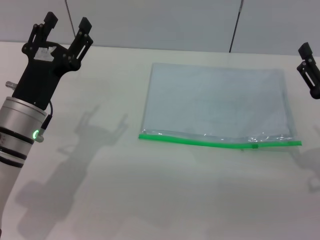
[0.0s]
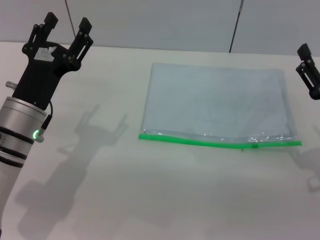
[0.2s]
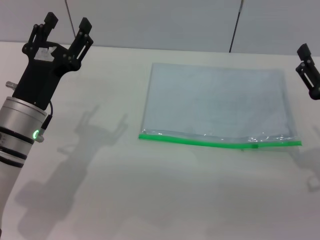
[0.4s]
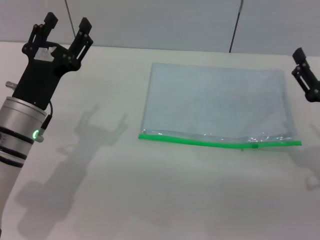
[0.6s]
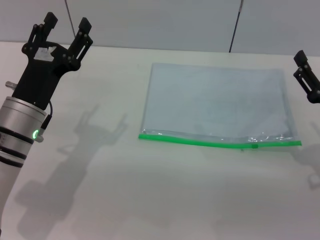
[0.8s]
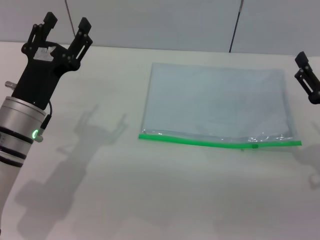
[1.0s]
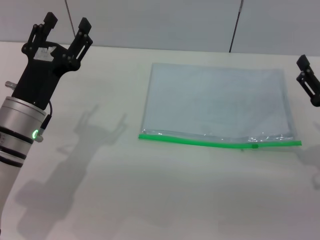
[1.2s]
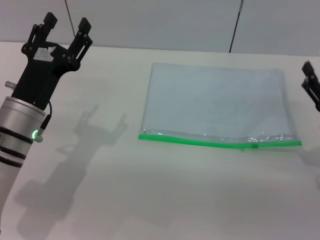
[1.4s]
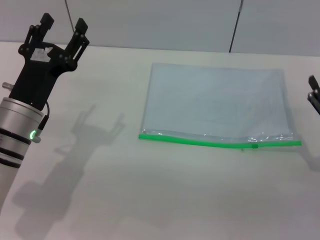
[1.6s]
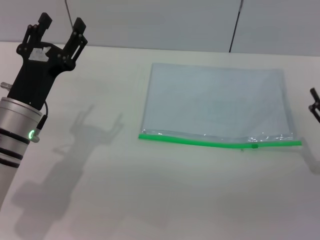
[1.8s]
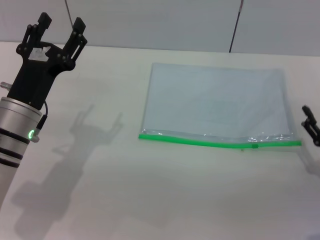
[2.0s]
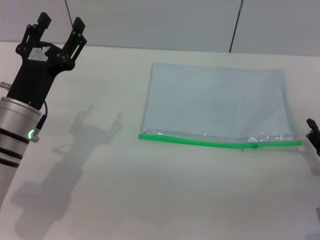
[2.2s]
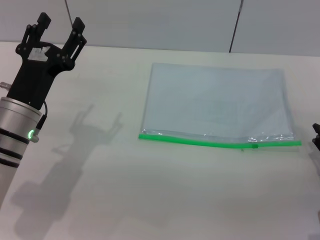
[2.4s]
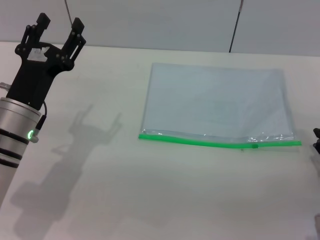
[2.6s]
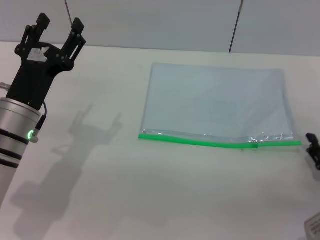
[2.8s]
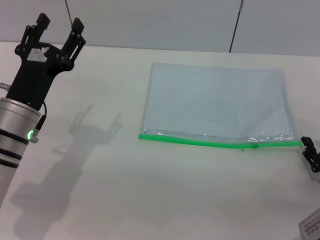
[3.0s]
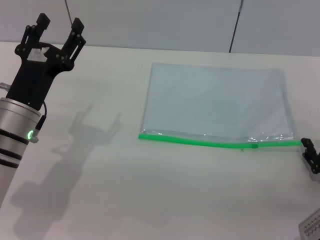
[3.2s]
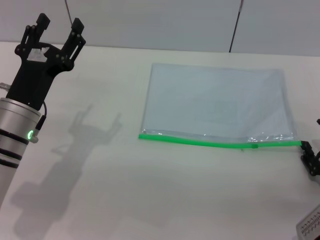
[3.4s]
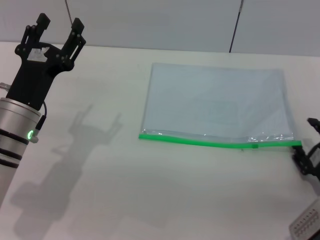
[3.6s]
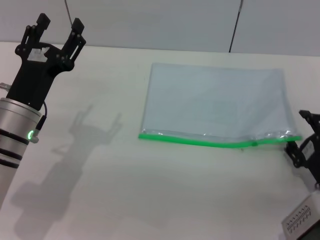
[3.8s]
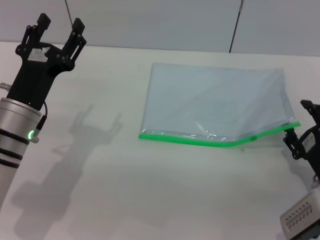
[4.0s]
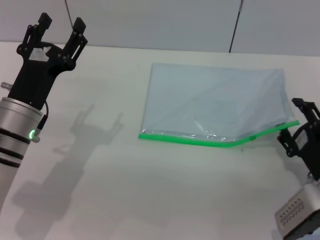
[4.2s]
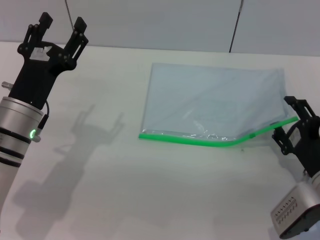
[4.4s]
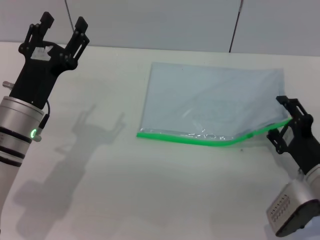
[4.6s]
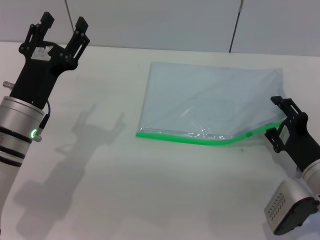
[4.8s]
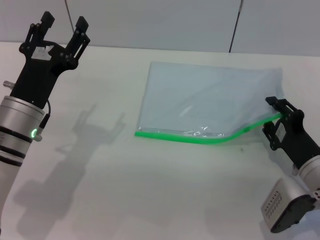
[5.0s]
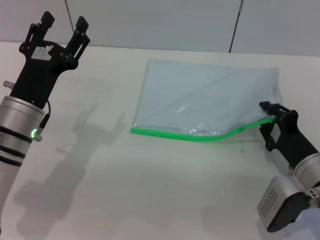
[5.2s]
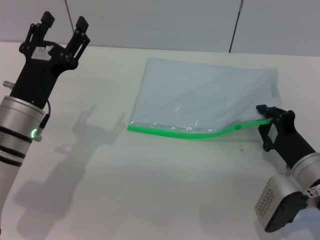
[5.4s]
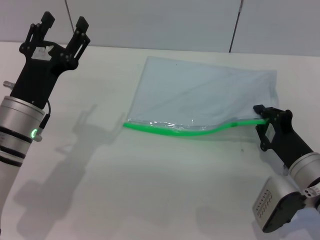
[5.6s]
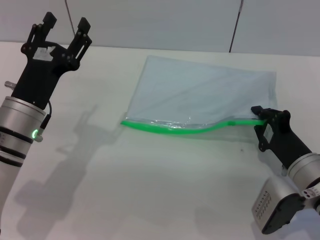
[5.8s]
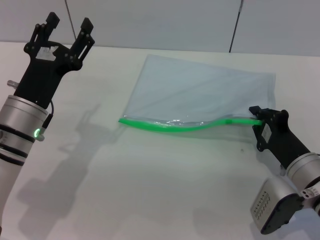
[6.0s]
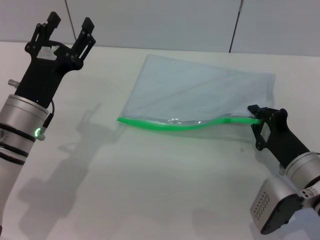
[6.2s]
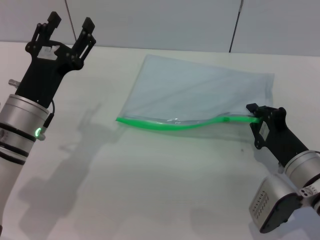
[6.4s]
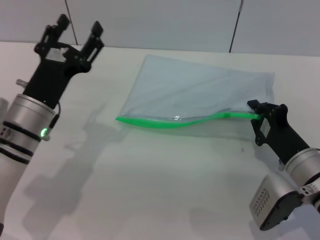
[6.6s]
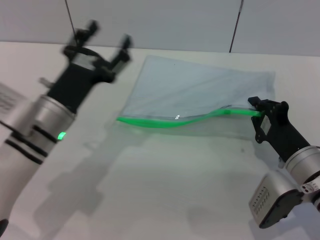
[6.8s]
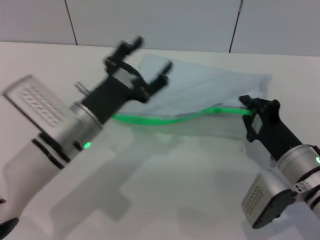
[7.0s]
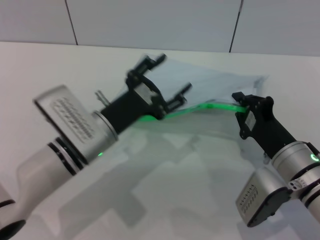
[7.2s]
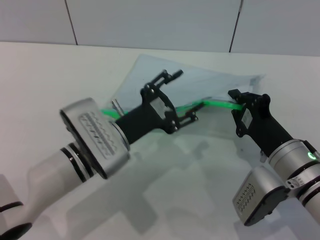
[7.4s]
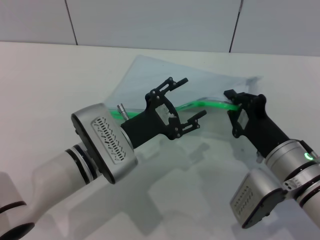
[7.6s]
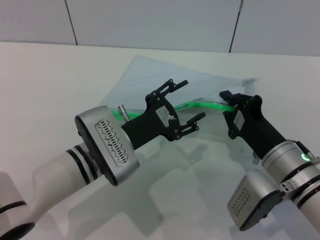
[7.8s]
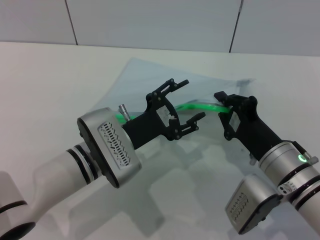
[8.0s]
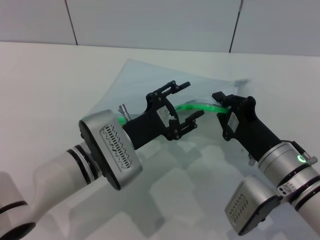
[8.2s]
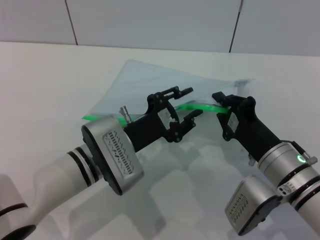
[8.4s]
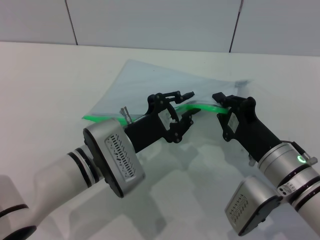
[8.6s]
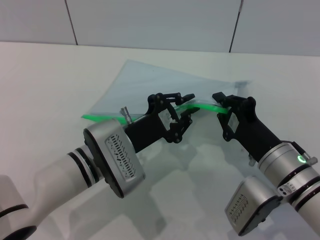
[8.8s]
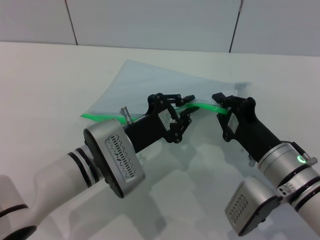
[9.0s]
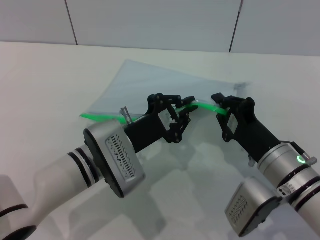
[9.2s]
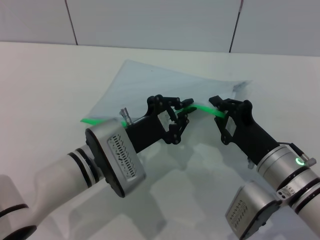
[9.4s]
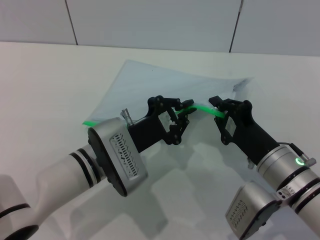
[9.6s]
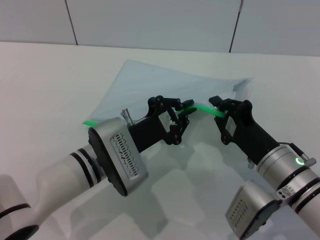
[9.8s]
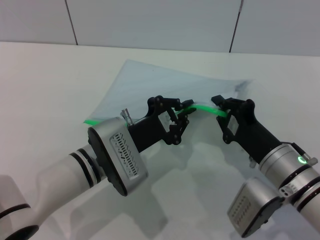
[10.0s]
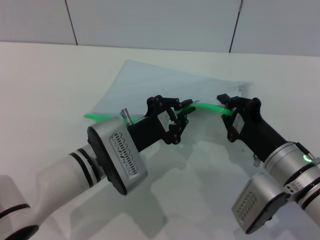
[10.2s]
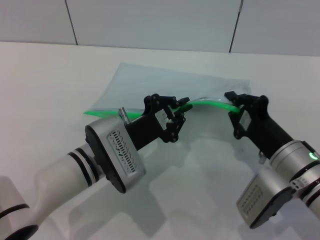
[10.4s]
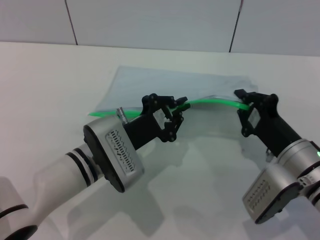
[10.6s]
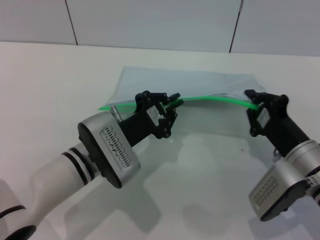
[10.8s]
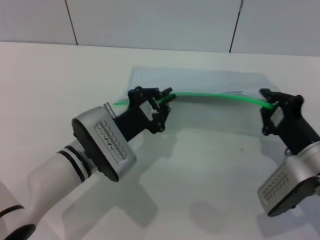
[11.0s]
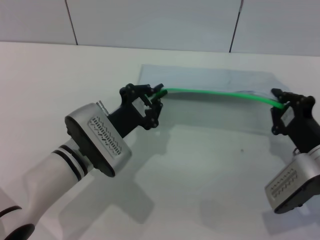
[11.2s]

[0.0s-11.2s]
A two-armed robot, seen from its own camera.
Step, 0.0s to 7.2s: Pick up the transparent plastic bag with the right gripper.
0.0s to 1.6s: The grippers make only small movements.
1.6s to 3.2s: The right gripper goes roughly 5 cm downward.
3.2s to 4.8s: The right gripper moves to the left, about 5 cm.
4.8s to 6.4s: The right gripper closes up.
6.4s to 8.0s: The left gripper travels to the right by approximately 10 cm.
8.0s to 9.6s: The left gripper closes its fingers.
9.6s to 11.2s: The right gripper shifts approximately 5 cm to the right.

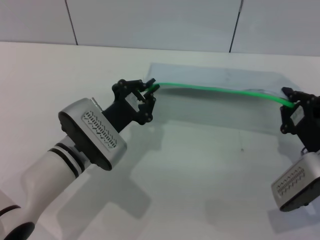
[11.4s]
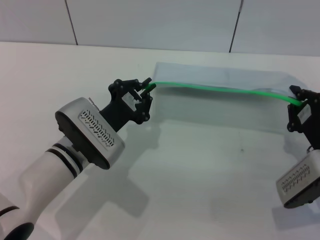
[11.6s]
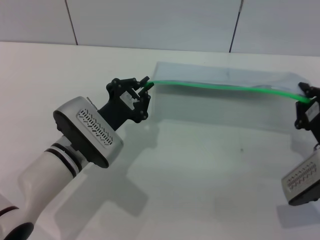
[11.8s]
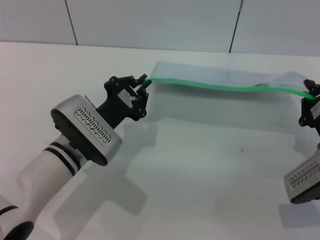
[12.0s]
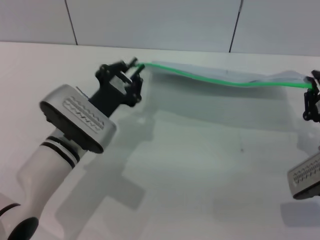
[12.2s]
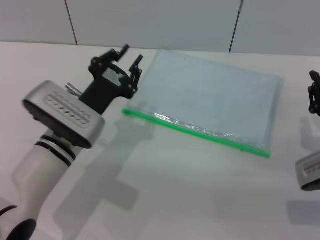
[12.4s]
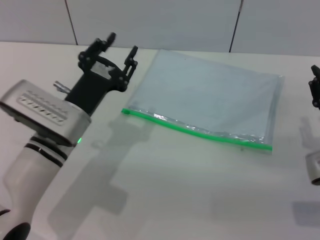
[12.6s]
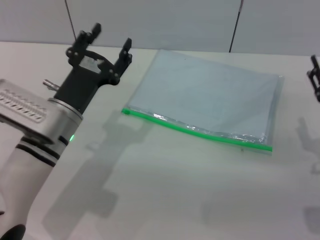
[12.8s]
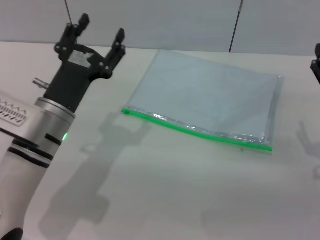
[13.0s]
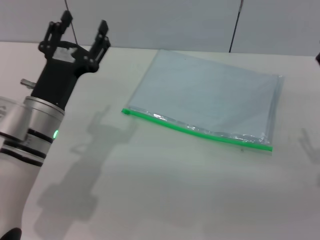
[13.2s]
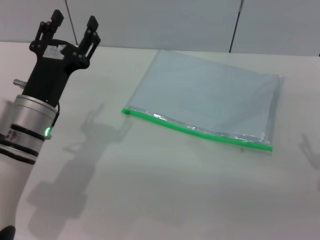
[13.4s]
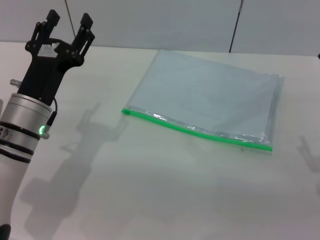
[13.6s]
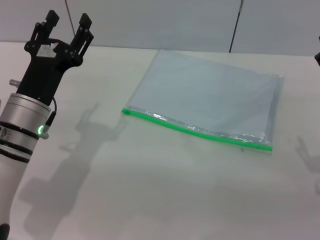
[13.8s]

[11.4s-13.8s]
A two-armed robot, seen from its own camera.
Step, 12.2s to 12.8s: Place the transparent plastic bag.
11.4s to 12.6s: The left gripper opens, while the right gripper opens up.
12.6s to 13.8s: The left gripper opens; the right gripper opens up.
